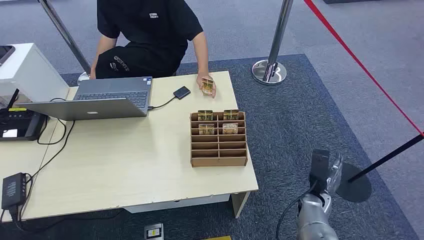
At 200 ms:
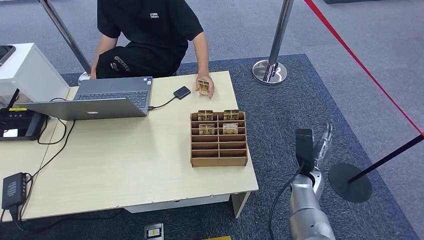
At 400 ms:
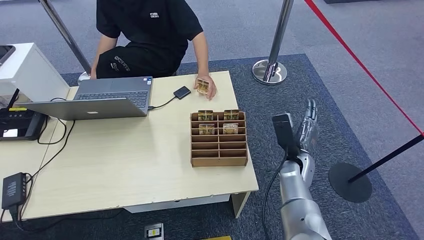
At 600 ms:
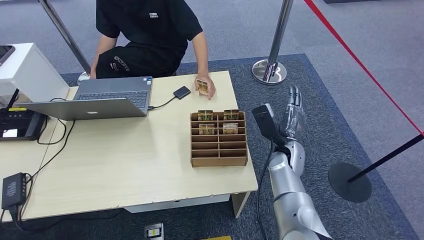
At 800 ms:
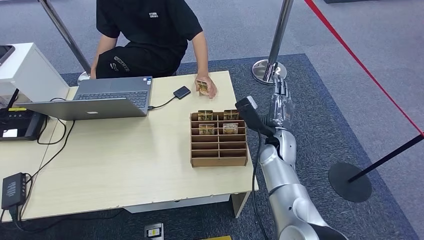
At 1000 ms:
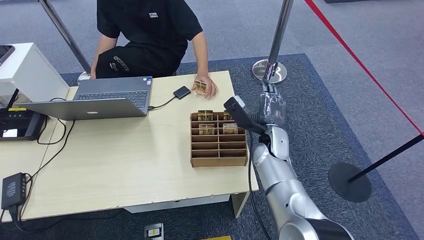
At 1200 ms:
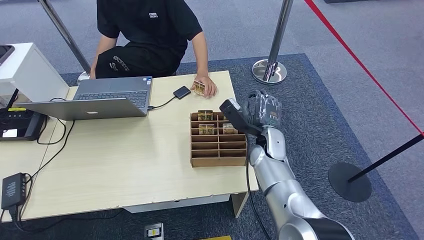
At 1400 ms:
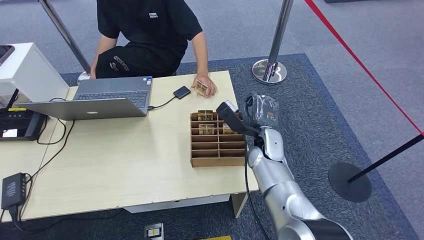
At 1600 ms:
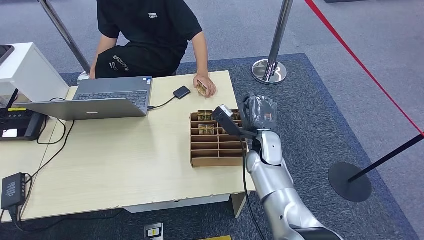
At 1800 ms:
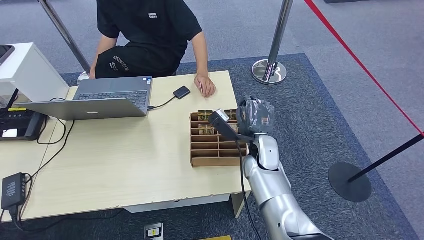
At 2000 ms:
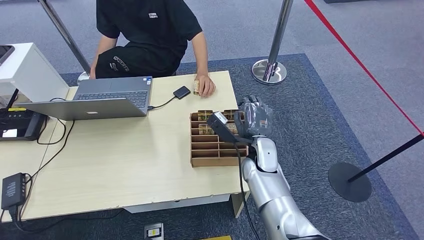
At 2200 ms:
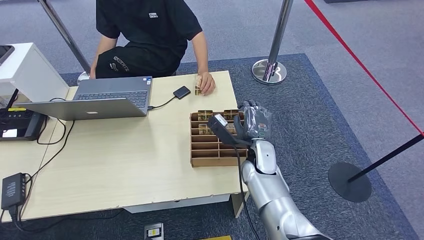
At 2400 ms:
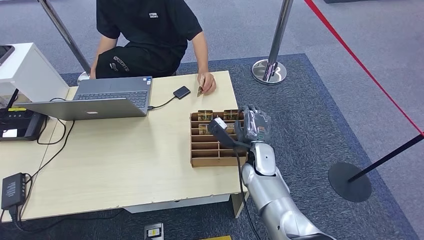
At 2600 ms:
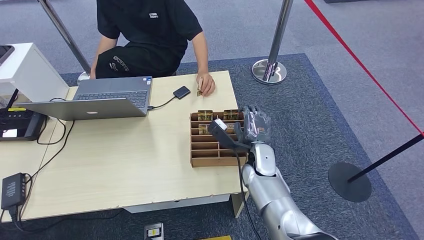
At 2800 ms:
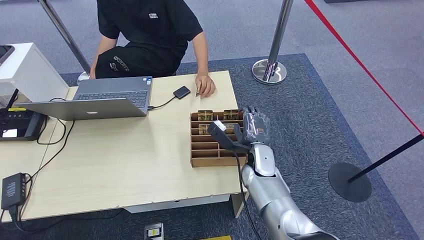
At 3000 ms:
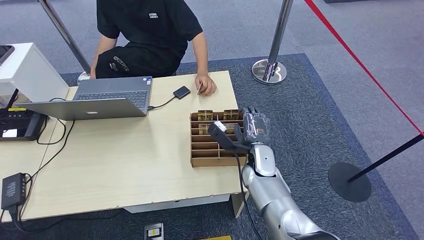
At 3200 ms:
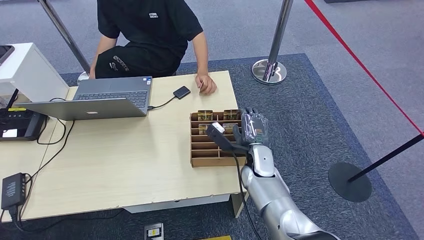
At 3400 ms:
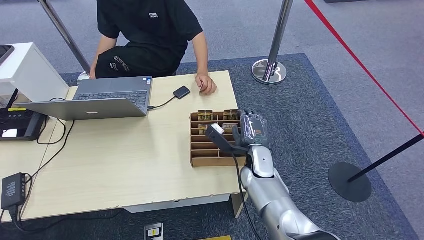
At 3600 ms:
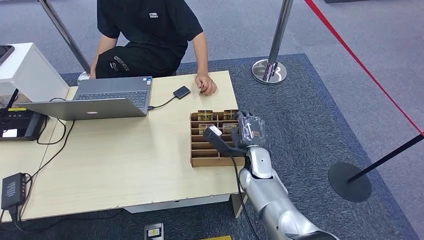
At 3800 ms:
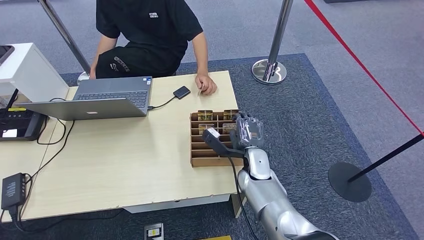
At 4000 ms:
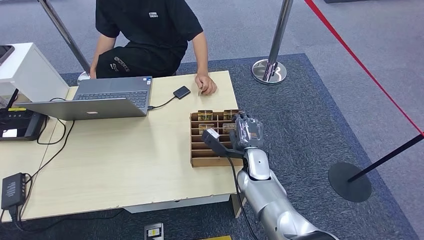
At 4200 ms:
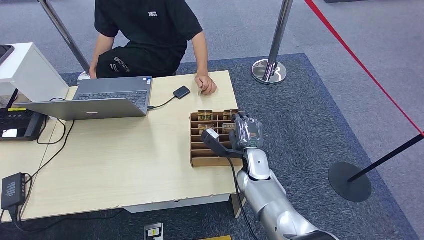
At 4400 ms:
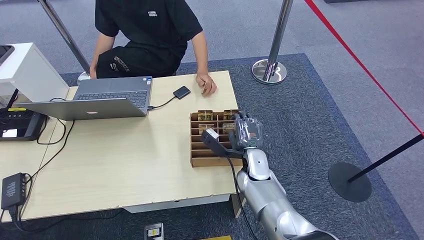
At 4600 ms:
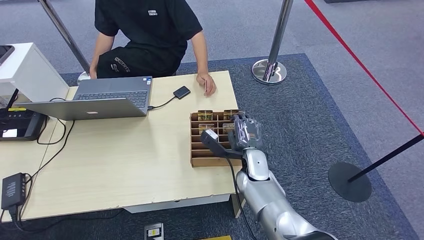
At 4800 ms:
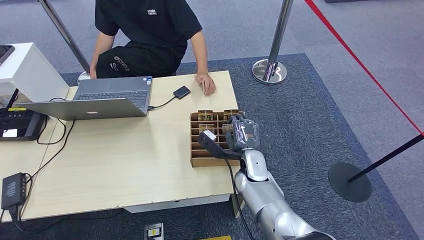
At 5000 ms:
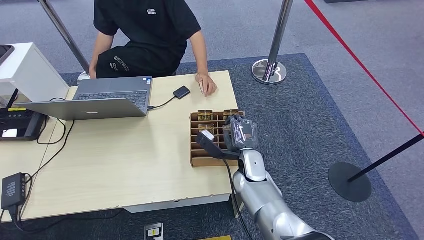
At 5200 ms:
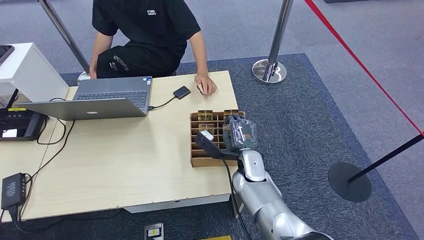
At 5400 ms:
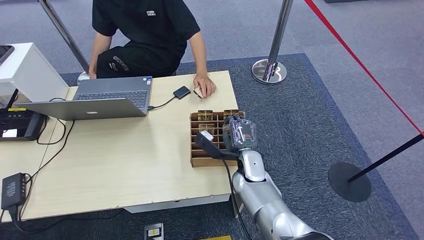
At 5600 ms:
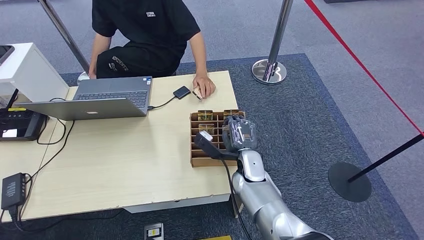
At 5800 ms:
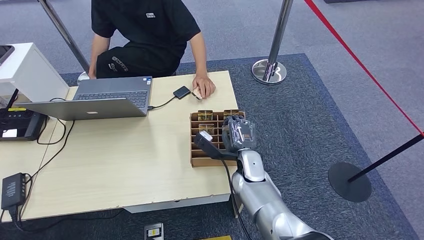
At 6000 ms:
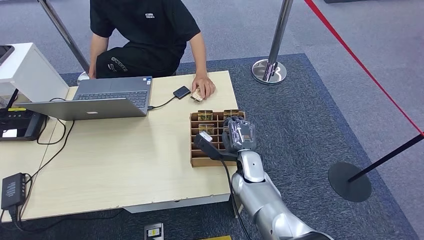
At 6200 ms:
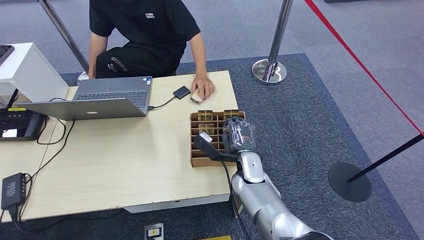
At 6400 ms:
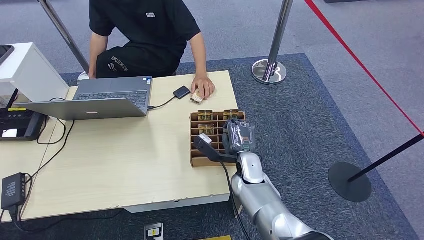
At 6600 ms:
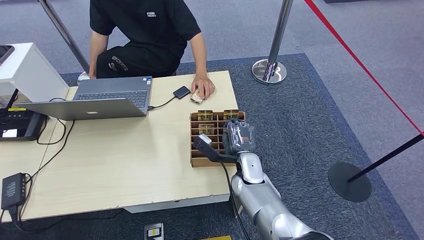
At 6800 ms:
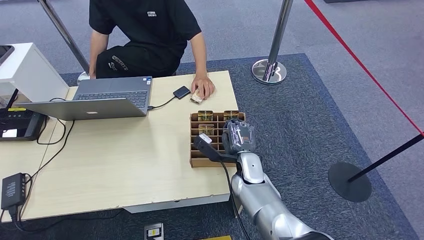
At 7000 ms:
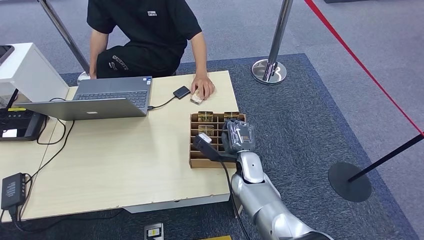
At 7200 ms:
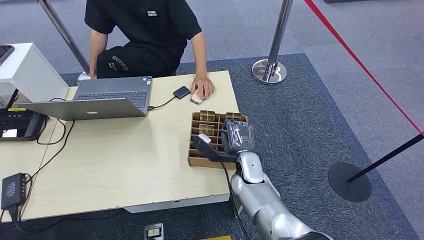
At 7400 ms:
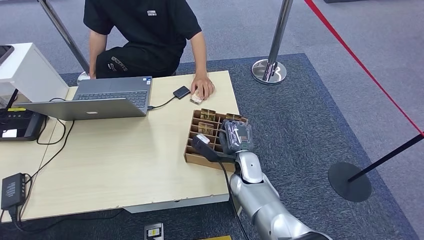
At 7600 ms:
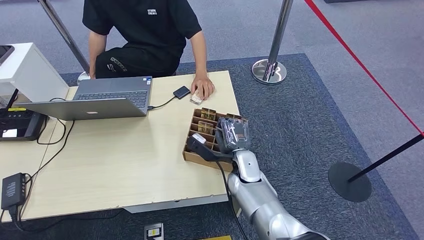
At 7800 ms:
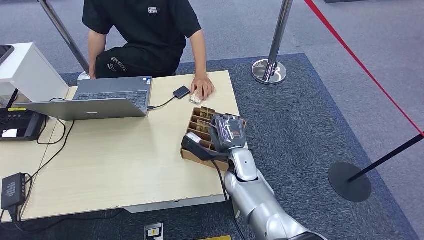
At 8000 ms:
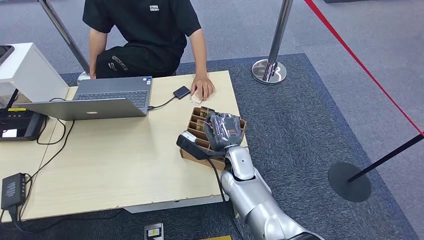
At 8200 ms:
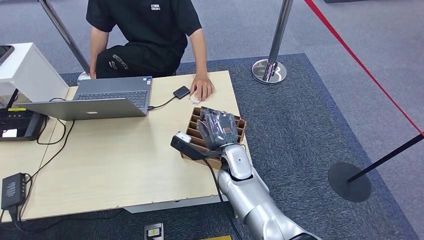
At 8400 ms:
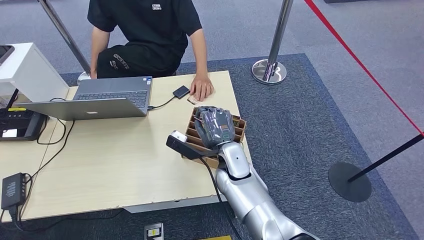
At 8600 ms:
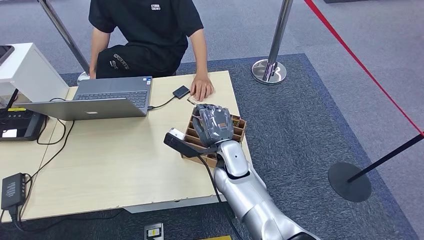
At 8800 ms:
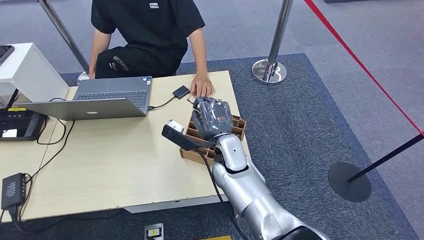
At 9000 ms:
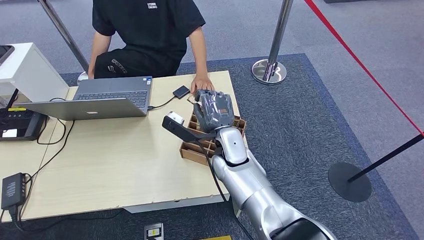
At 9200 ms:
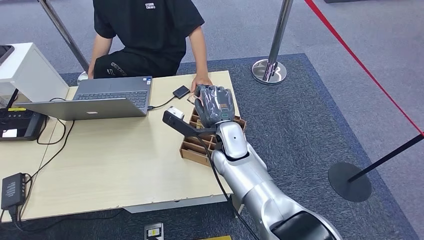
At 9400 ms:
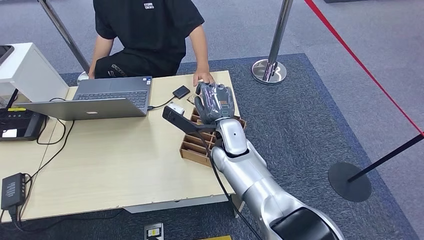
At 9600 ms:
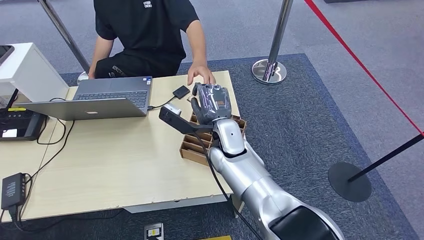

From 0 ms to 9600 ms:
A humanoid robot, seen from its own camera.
Step, from 0 ms to 8000 ms: Pick up the key card from the card box.
From 1600 ms to 3200 ms: The hands make only small movements.
From 3200 ms to 4800 ms: The hands move only a little.
From 4800 ms to 6400 ms: Both hands stay put.
From 6400 ms to 8000 ms: The hands move only a little.
From 8000 ms to 9600 ms: The right hand heads upward, covering some 10 cm.

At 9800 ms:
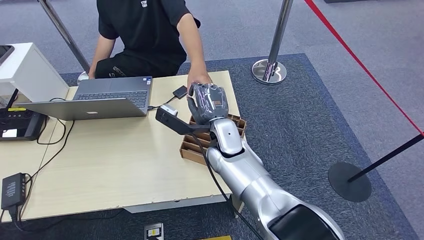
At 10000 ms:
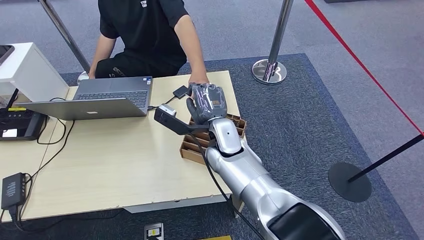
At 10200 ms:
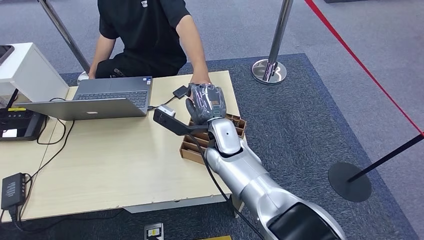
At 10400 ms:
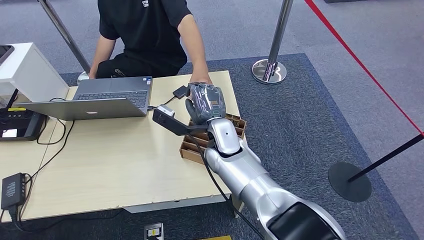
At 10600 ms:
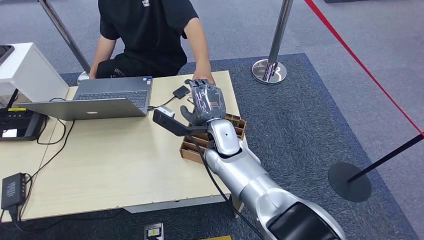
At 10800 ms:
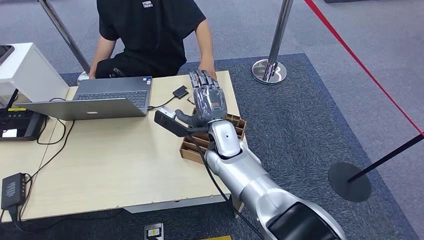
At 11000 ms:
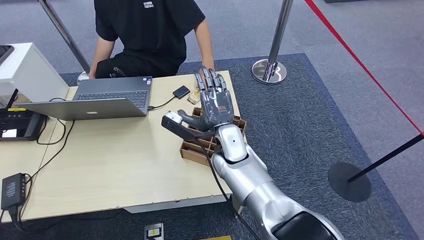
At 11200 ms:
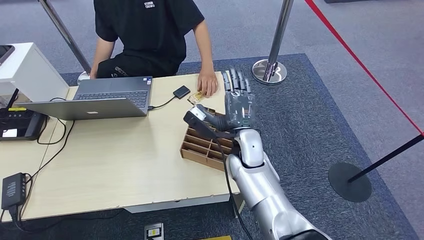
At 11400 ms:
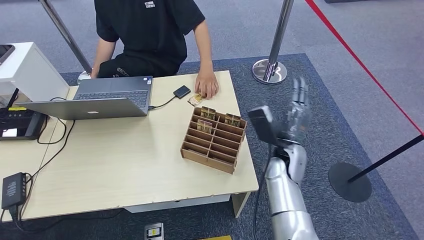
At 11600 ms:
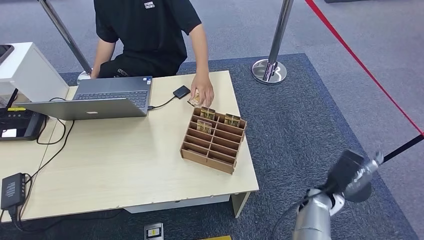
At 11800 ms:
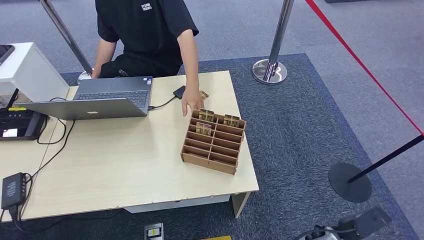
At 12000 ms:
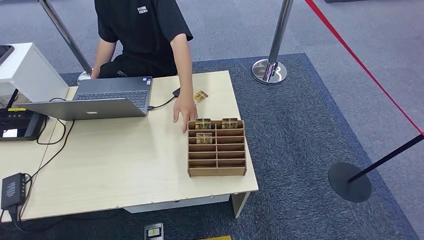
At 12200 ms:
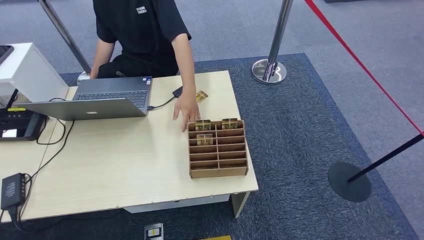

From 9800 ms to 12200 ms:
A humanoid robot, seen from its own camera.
Step, from 9800 ms to 12200 ms: Hand the key card to the target.
From 9800 ms to 11000 ms: There are only small adjustments of the hands.
From 11000 ms to 12200 ms: The right hand travels backward, downward and to the right by some 50 cm.
